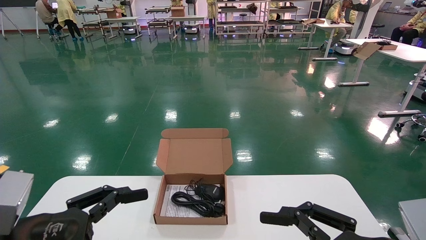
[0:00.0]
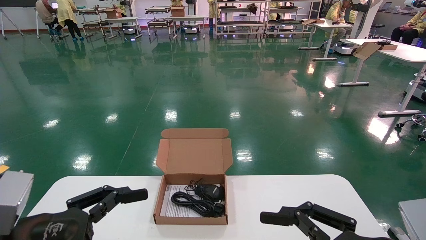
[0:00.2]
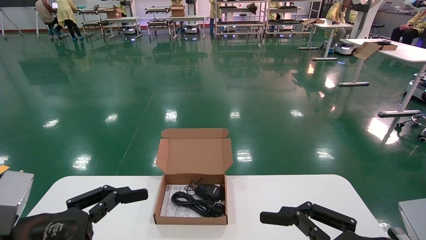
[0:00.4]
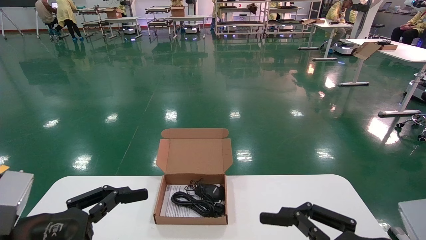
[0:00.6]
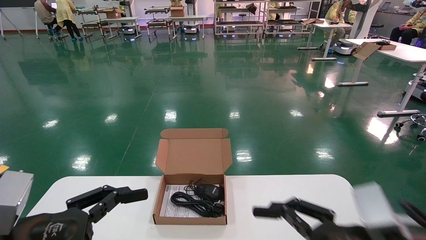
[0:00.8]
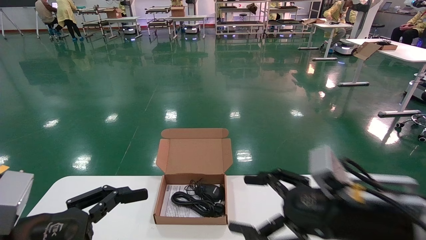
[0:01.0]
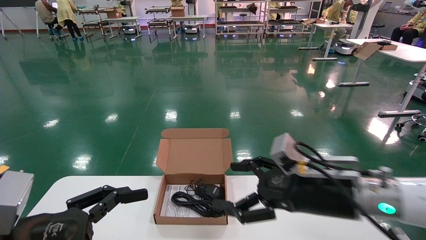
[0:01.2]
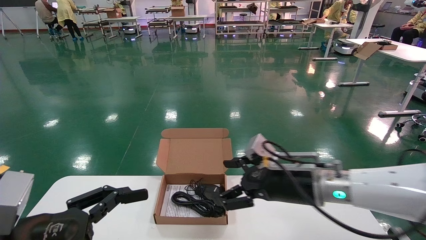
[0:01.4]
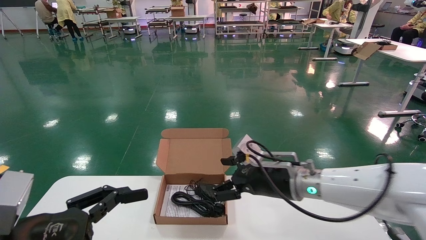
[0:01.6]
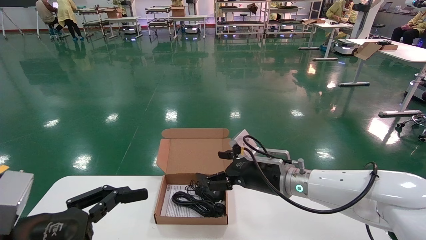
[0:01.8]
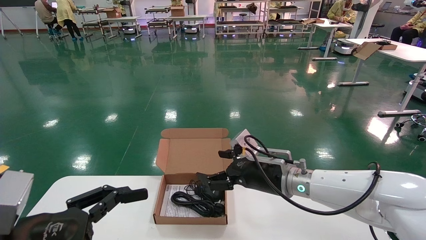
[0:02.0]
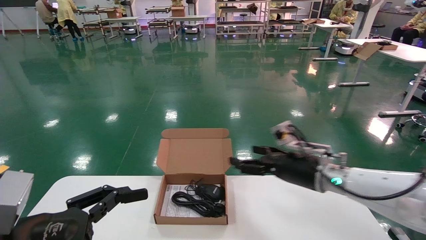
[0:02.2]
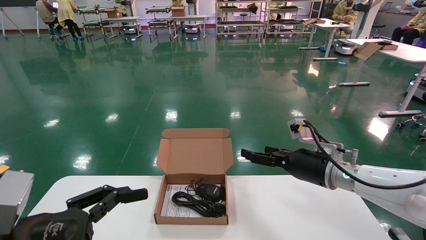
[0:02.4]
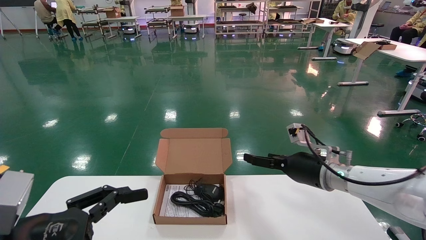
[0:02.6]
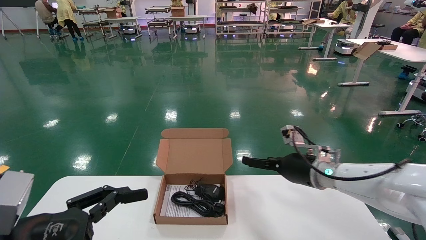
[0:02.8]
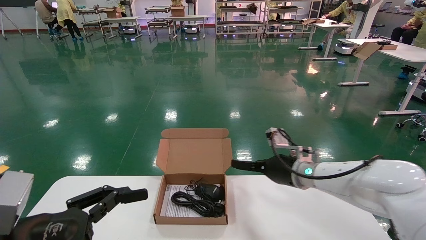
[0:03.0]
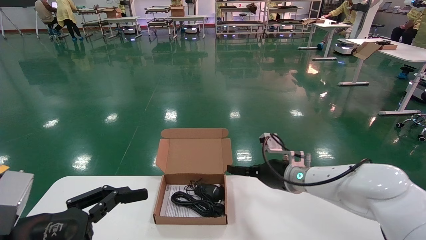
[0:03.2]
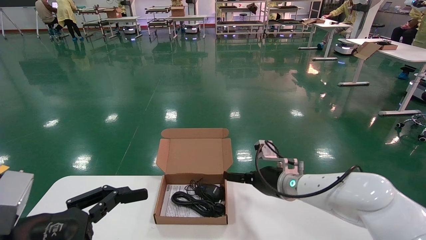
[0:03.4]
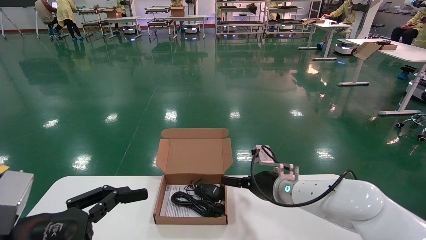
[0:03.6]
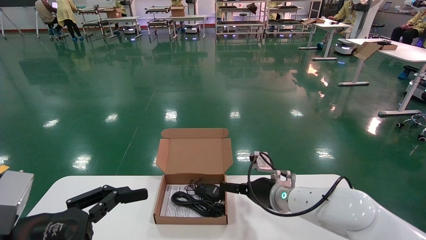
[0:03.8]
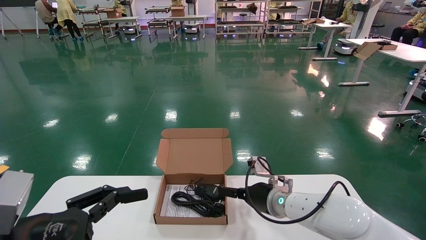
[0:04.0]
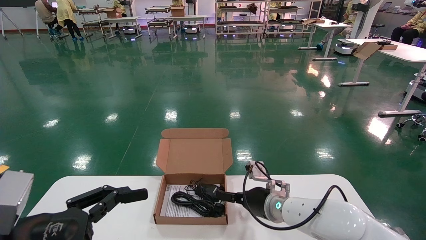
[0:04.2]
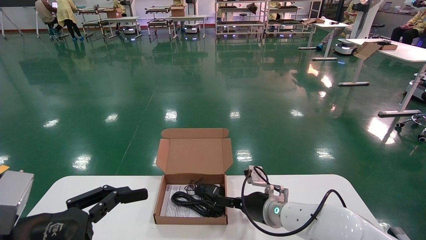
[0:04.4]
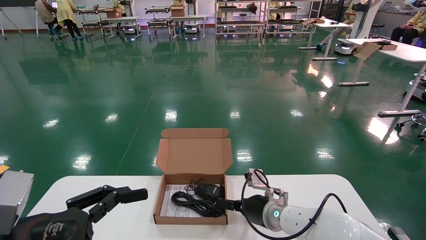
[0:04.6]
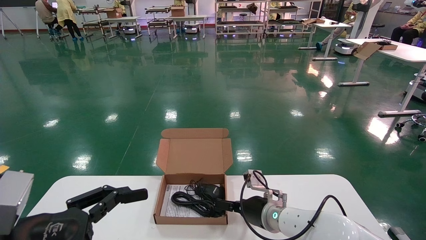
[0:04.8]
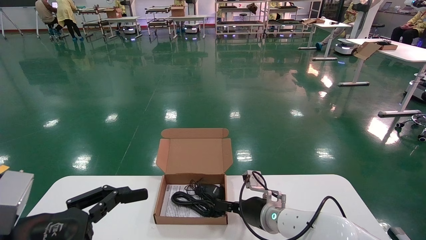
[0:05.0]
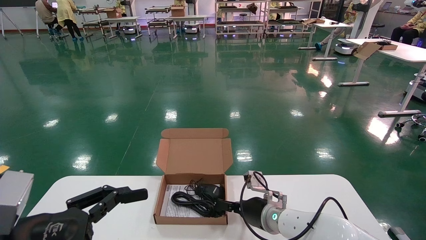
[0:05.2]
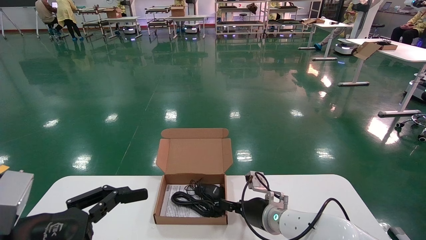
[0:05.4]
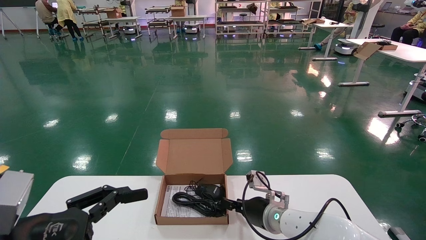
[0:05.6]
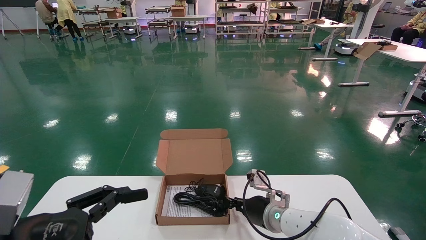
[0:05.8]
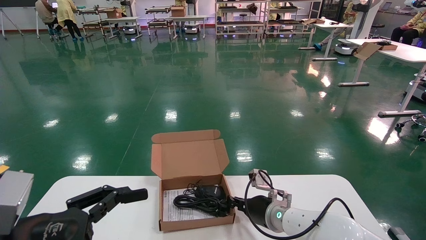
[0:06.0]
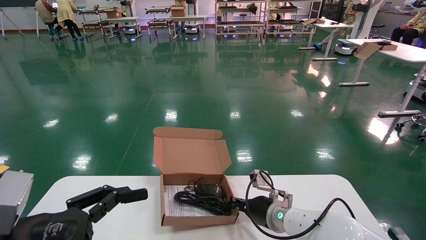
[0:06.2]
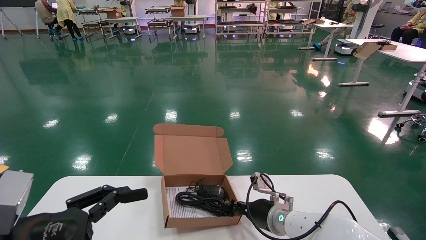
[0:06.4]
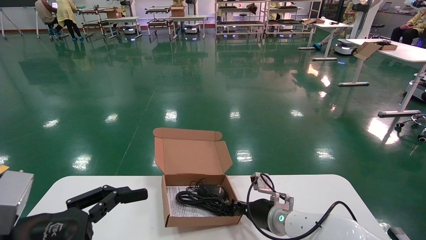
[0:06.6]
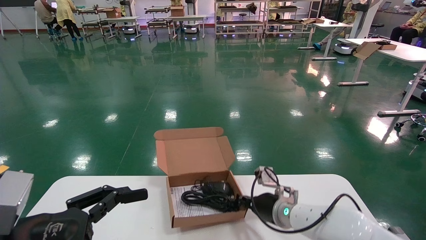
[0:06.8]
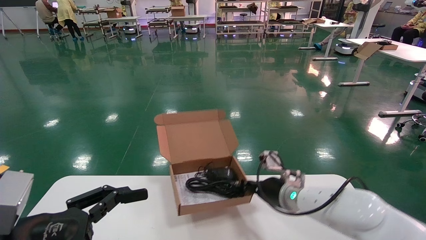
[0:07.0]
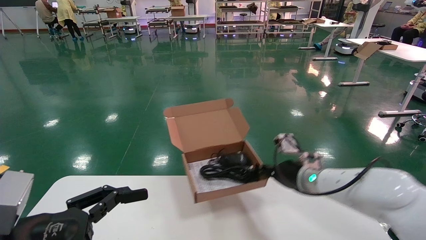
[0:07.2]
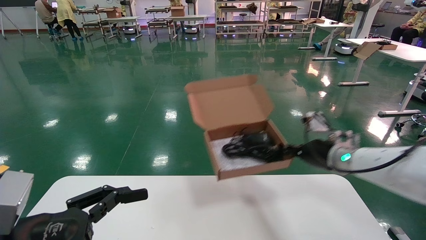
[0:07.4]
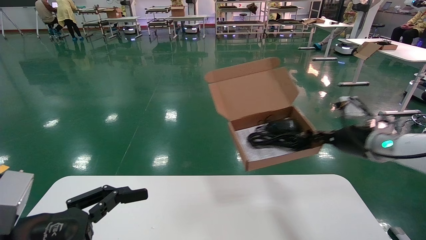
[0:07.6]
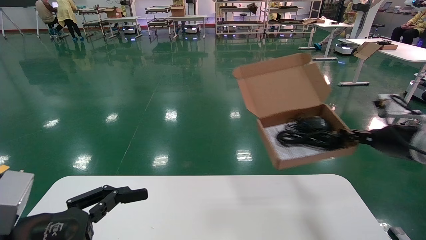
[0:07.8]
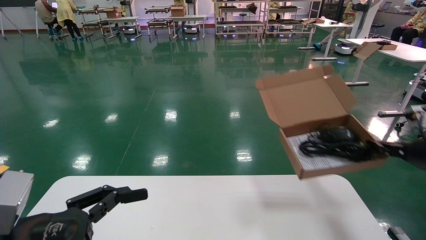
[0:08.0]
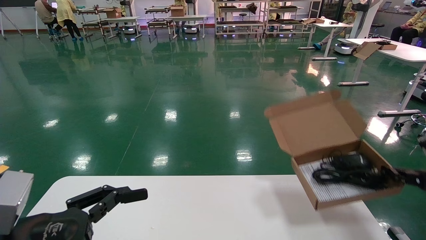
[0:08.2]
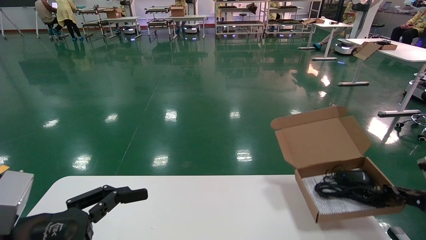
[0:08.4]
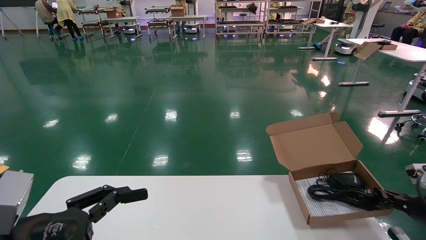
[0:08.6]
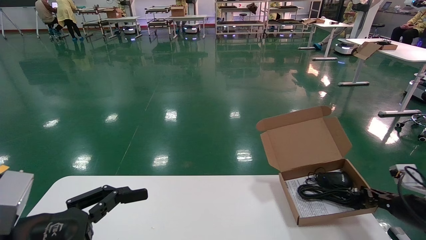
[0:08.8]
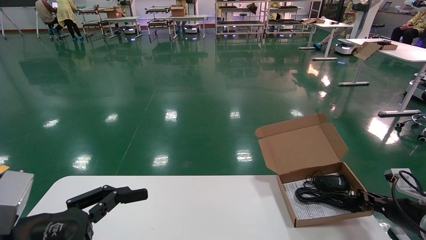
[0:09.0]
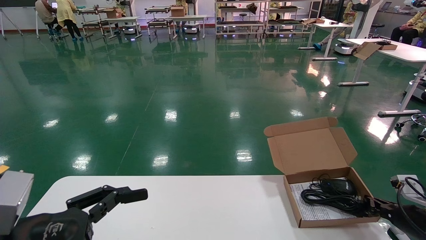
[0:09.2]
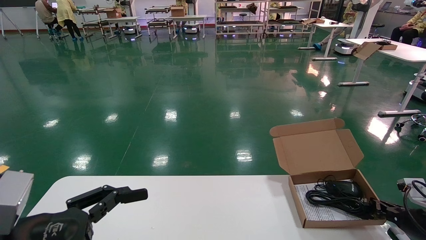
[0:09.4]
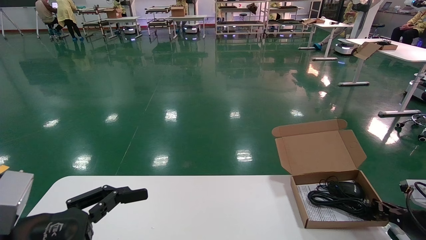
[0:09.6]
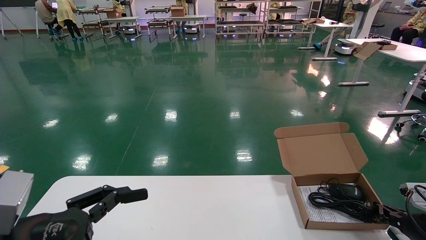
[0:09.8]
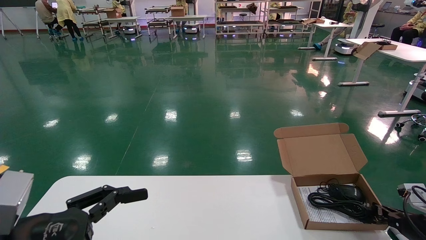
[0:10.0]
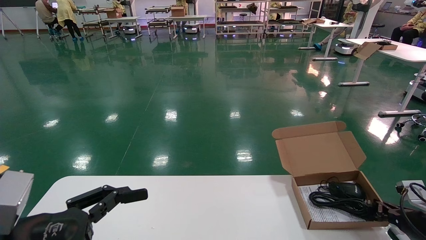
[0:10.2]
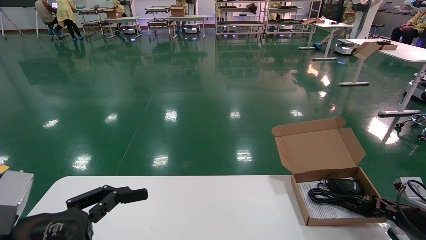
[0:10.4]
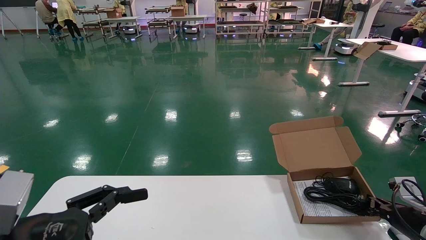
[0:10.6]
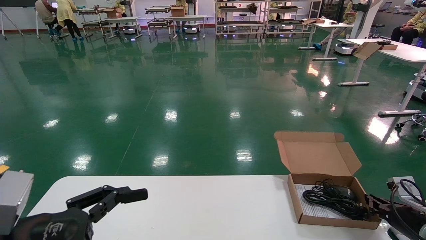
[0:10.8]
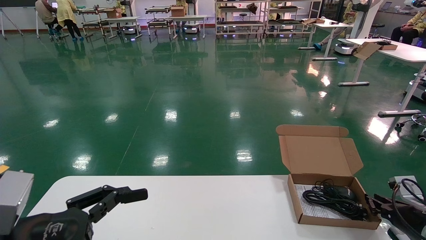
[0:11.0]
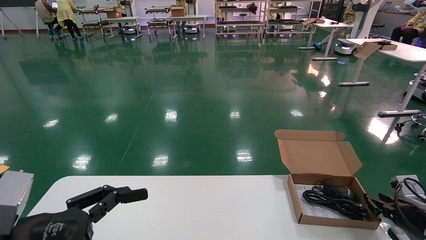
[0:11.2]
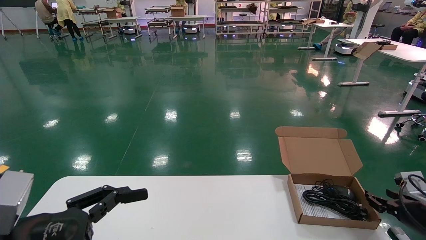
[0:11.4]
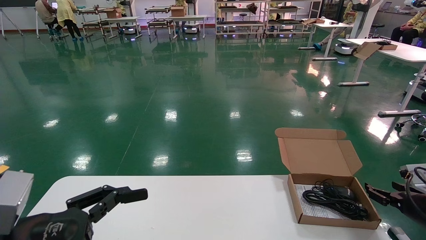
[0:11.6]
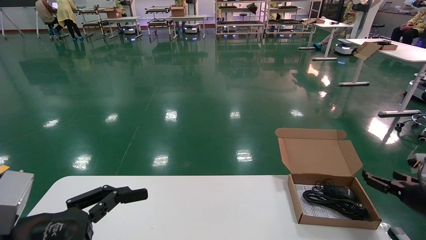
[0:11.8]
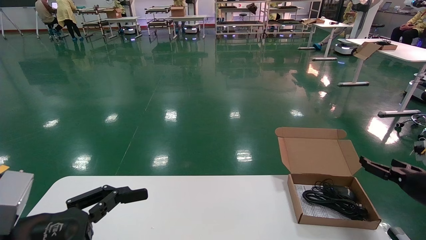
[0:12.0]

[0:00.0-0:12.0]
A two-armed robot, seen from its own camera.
Task of the whole recording: move the position of the storage box with accessories on the table.
Step, 0:01.0 to 0:06.4: Grab and pick up the open mouse box from the accessory packaging area.
Step, 0:06.6 to 0:11.2: Place the open mouse box onto the operation table.
0:00.0 to 0:01.6: The right gripper is displaced forward and to the left by some 25 cm.
0:01.6 to 0:03.0: The right gripper travels forward by about 5 cm.
0:03.0 to 0:04.4: The right gripper travels downward and to the left by roughly 10 cm.
0:04.4 to 0:06.0: The right gripper closes up.
0:06.0 to 0:07.6: The right gripper travels to the right and upward by some 25 cm.
0:07.6 to 0:09.0: The right gripper goes approximately 20 cm downward and to the right.
0:09.0 to 0:10.4: The grippers stay close to where they were, moving slightly.
0:10.4 to 0:12.0: The right gripper travels upward by roughly 10 cm, and opens its fingers.

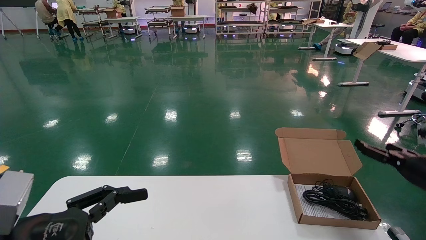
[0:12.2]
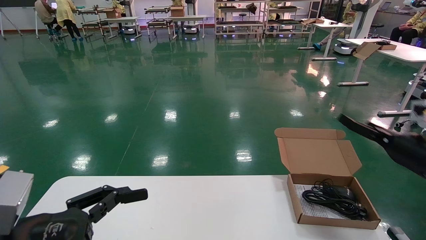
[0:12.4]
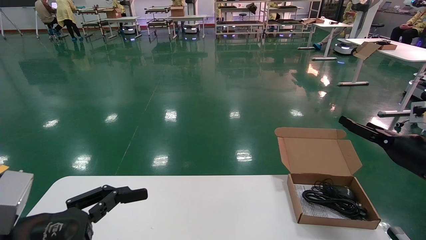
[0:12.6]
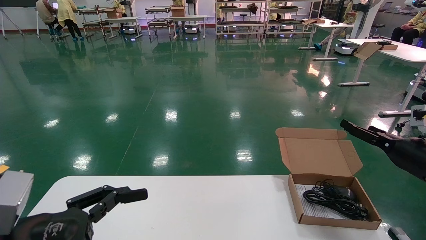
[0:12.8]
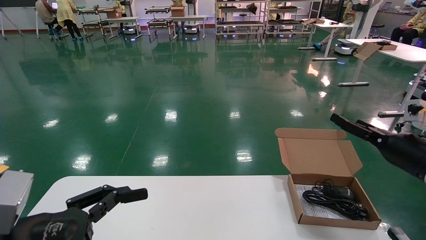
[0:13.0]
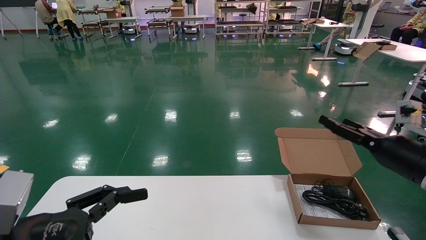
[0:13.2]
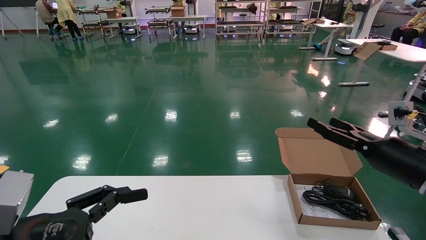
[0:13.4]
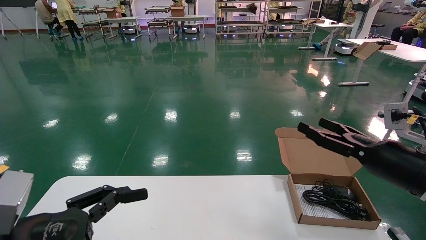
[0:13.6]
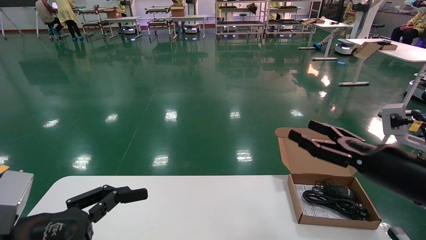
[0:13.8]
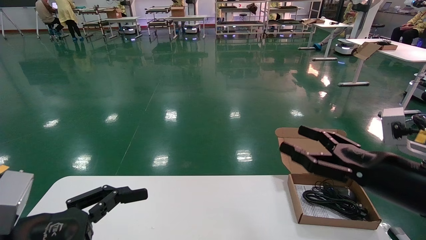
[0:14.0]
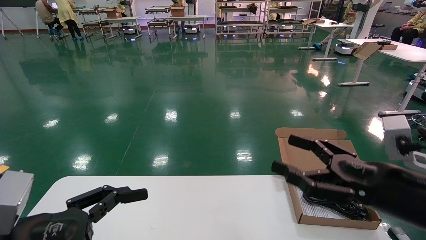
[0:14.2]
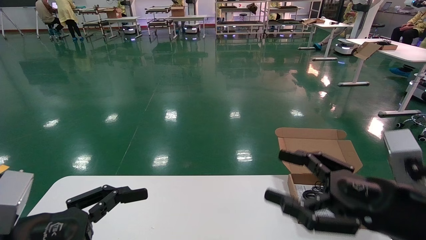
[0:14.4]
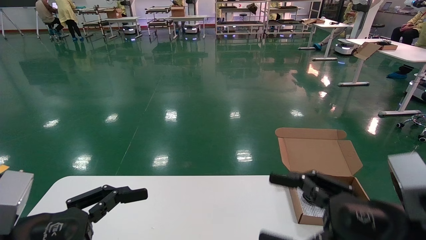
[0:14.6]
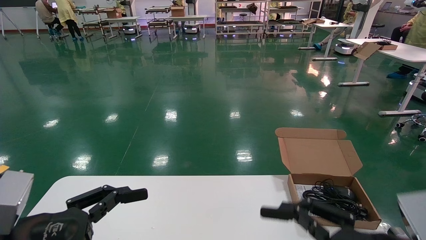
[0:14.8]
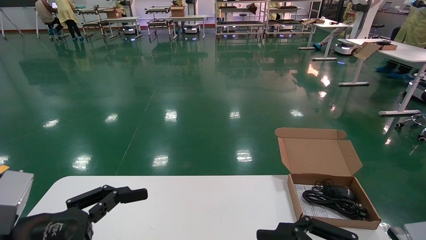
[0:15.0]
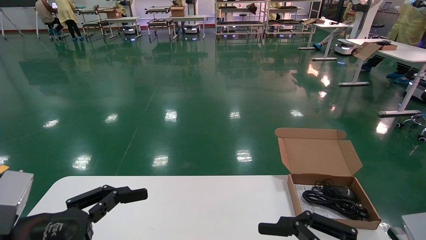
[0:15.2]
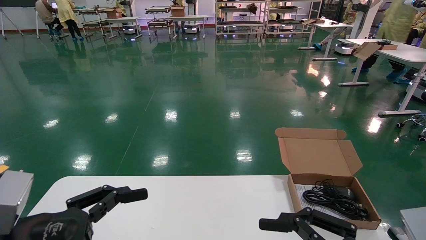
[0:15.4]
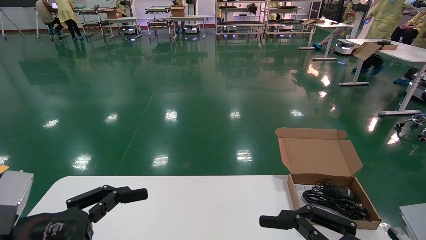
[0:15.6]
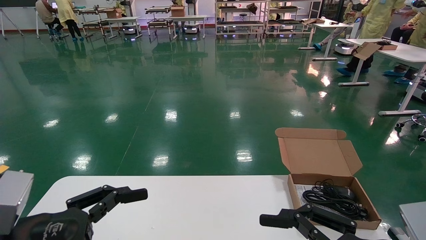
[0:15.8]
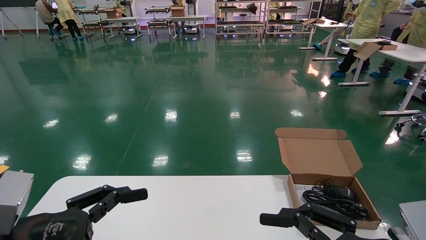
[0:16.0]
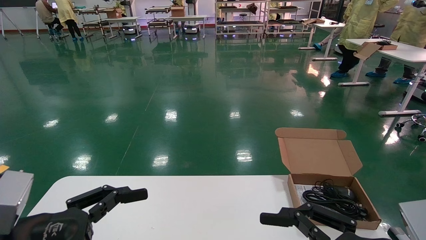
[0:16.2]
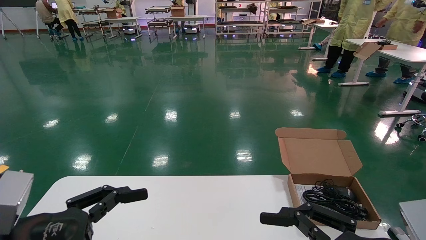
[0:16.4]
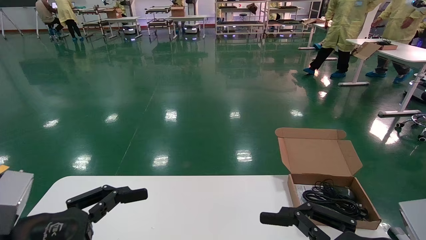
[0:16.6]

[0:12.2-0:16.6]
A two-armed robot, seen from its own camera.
Task of the whole recording: move the position of the storage box with accessories on the table.
0:12.2 to 0:13.6: The right gripper goes about 10 cm to the left and backward.
0:13.6 to 0:15.2: The right gripper moves backward and to the left, approximately 20 cm.
0:15.2 to 0:16.6: Neither gripper changes place.
